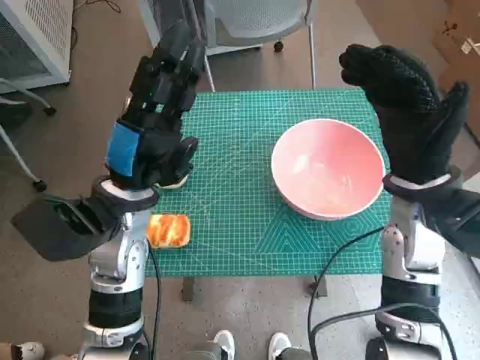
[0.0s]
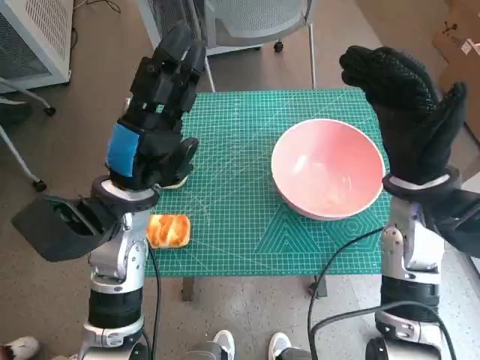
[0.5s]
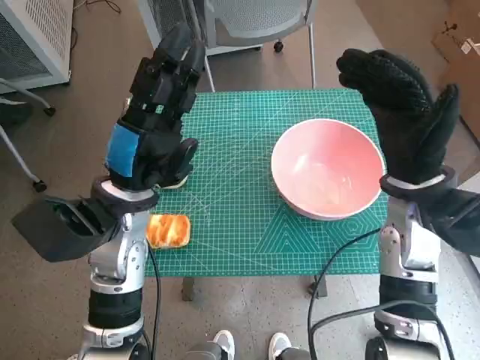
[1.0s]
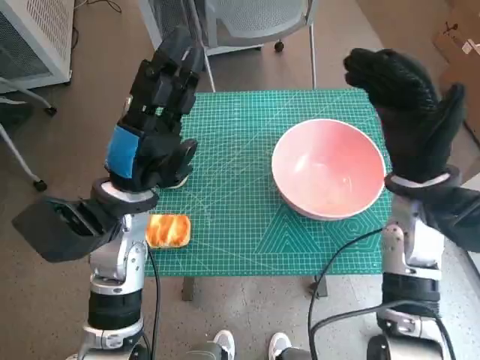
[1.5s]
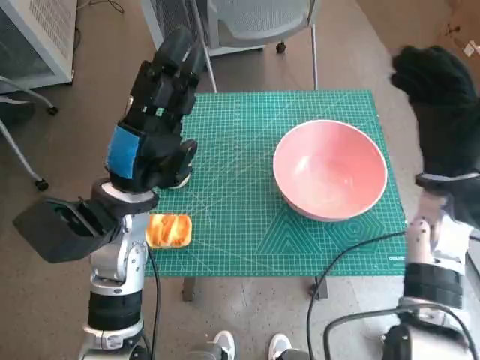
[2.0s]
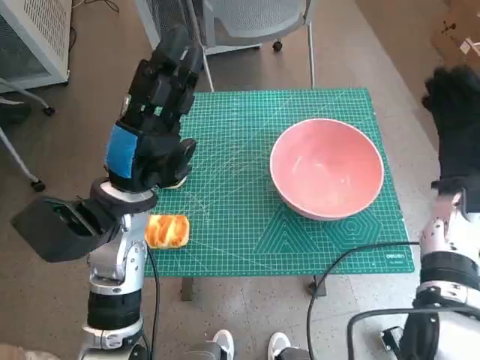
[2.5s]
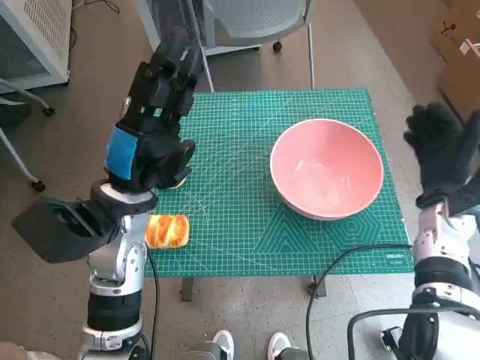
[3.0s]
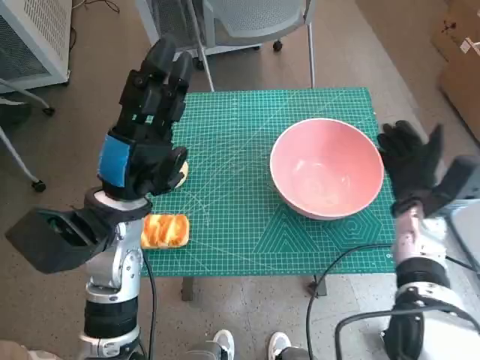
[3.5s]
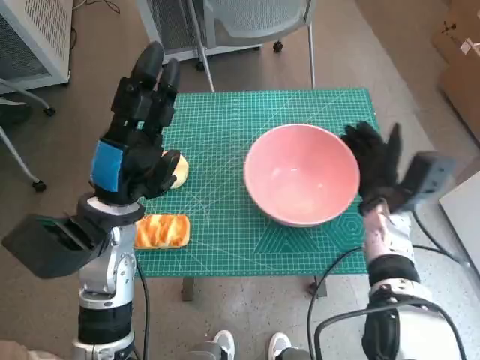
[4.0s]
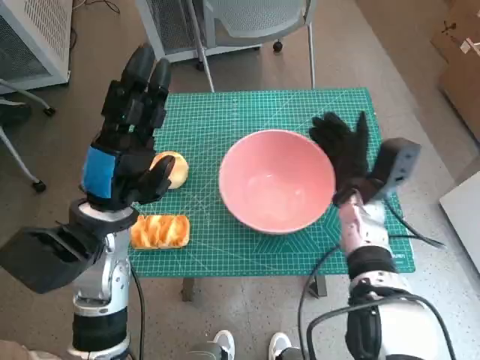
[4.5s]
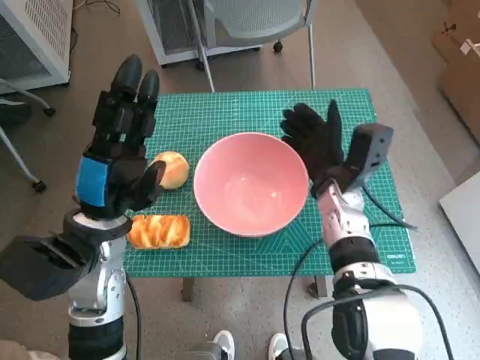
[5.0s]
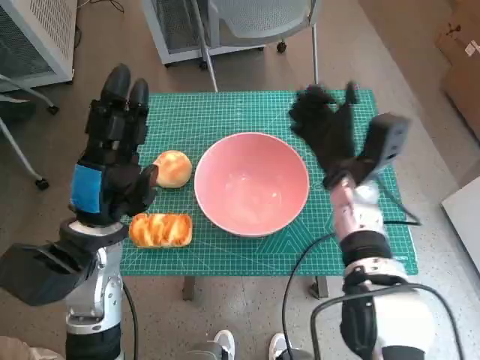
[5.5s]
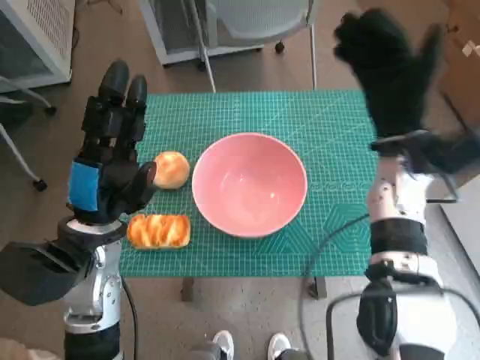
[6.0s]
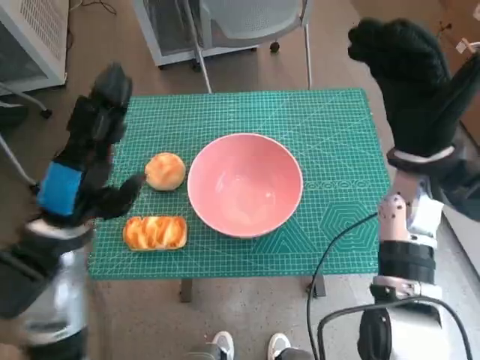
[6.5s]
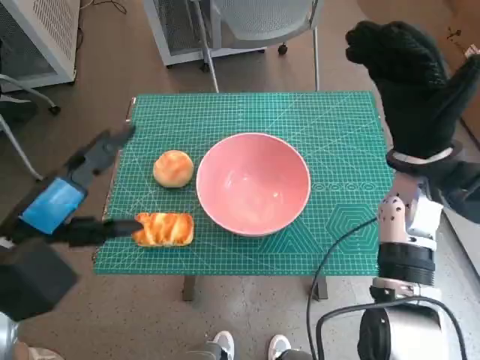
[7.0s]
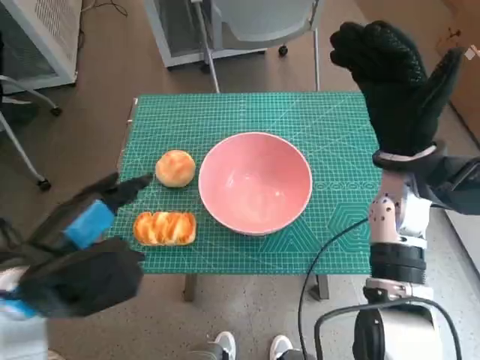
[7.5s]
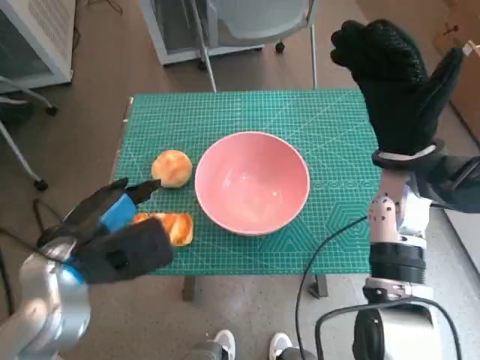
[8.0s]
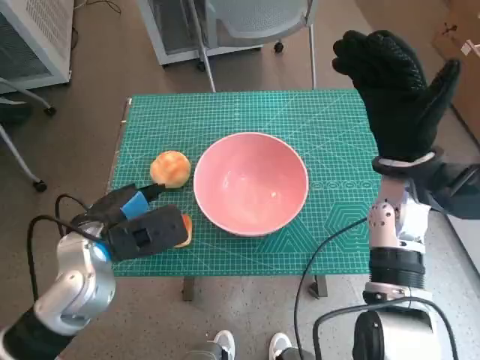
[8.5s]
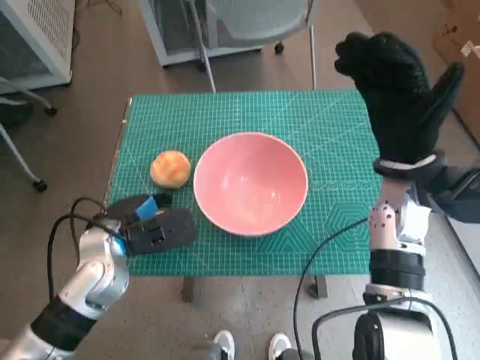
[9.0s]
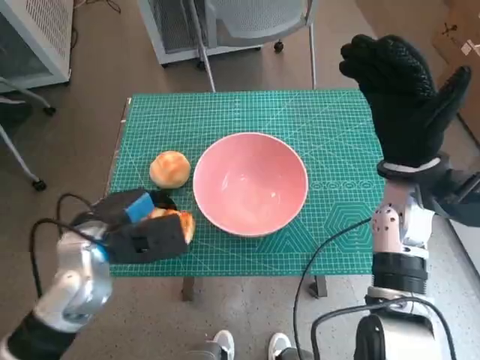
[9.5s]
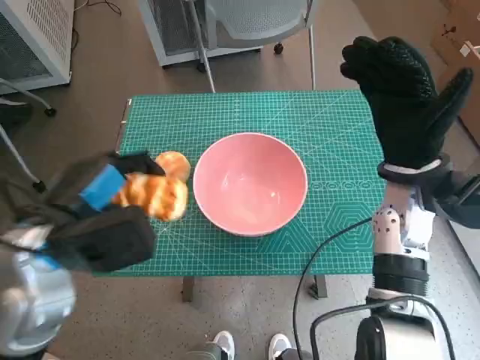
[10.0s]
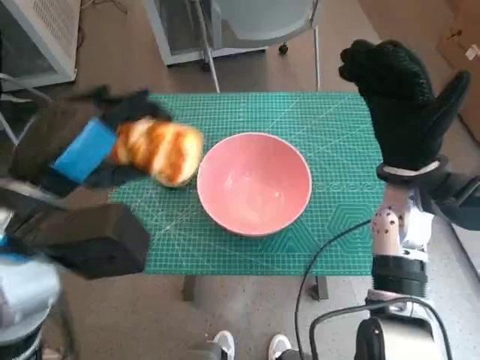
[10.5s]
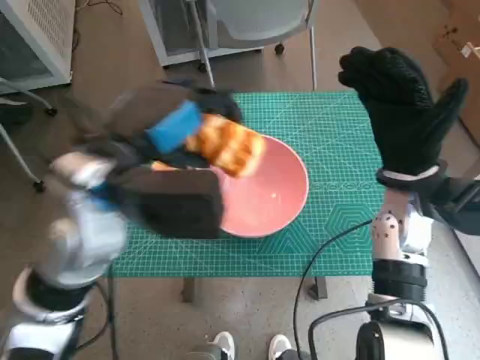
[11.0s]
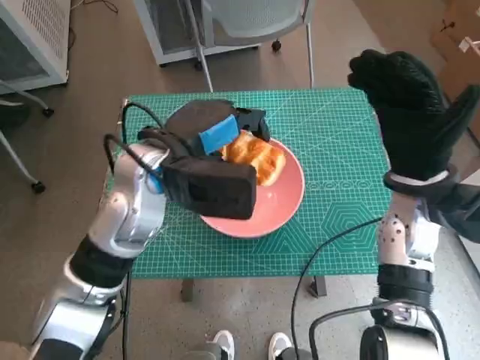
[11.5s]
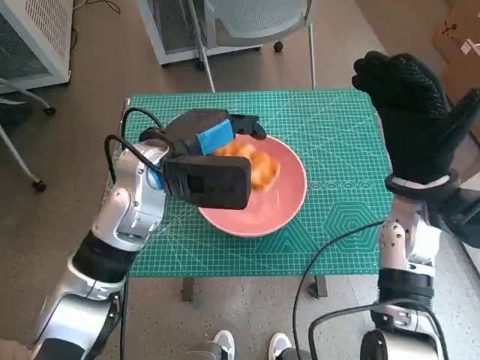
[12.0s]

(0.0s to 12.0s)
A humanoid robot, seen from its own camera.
Step, 0.0s - 5.0s: Move the pink bowl to the center of table with right hand.
Step, 5.5s - 9.0s: Grasp the long bread with left hand.
2.0s - 4.0s: The right hand travels downward by about 10 cm.
4.0s - 6.0s: The right hand heads upward, covering approximately 10 cm.
8.0s - 10.0s: The left hand goes downward and returns, roughly 5 cm each way.
10.0s - 12.0s: The left hand is displaced forward and to the right by some 15 cm.

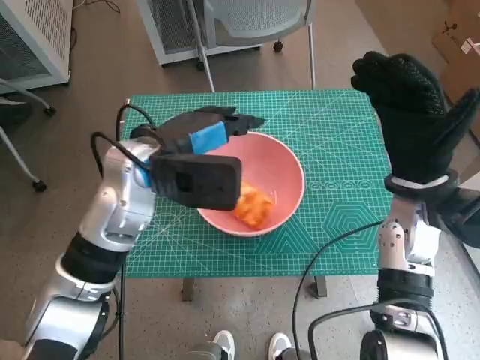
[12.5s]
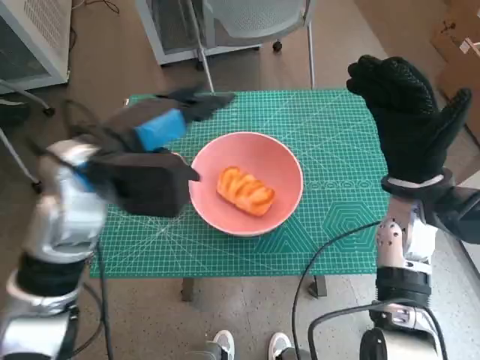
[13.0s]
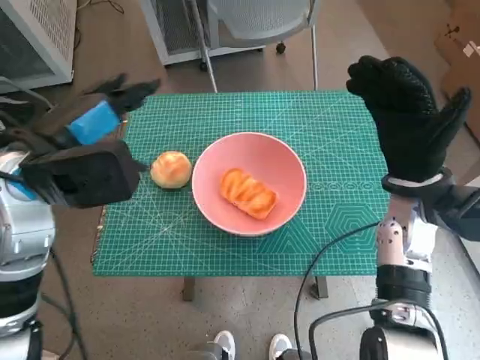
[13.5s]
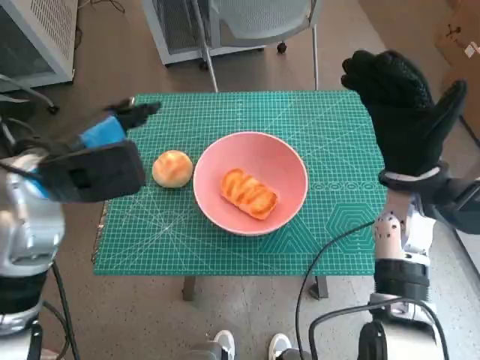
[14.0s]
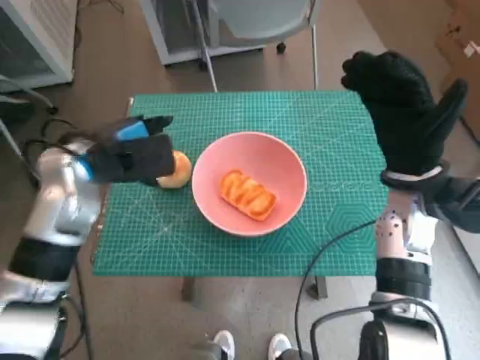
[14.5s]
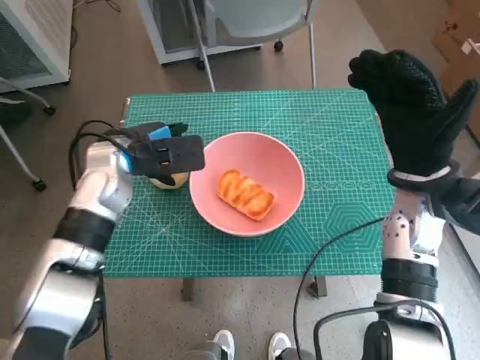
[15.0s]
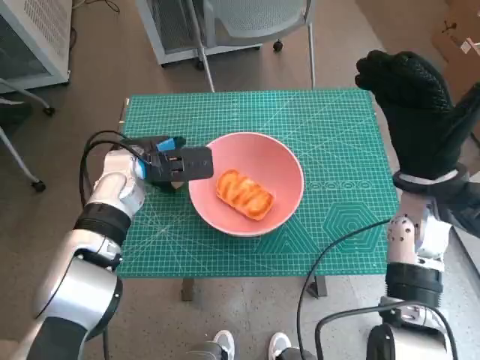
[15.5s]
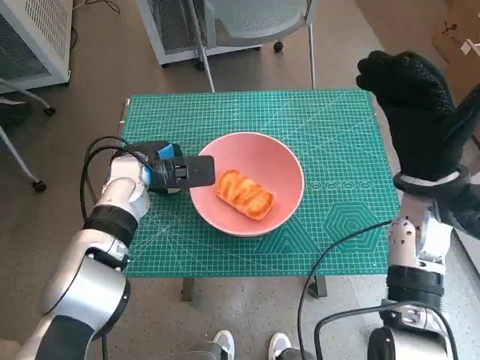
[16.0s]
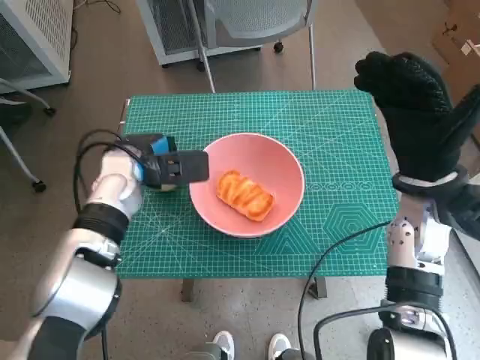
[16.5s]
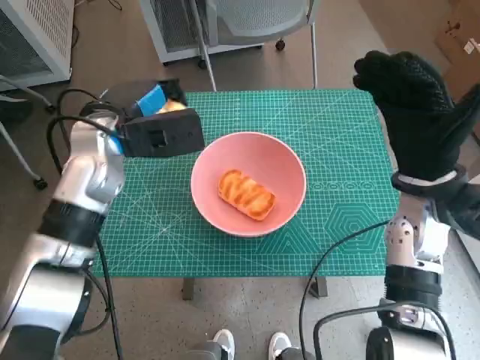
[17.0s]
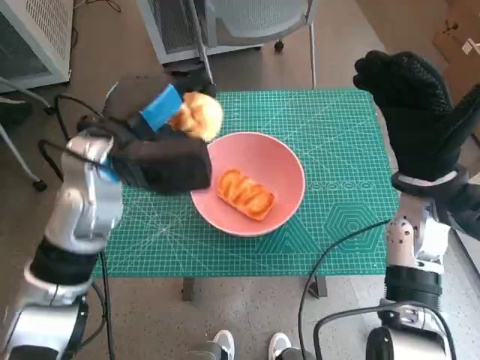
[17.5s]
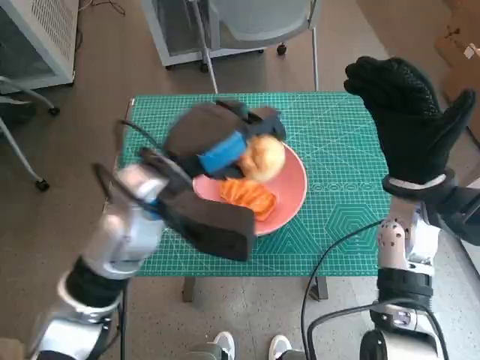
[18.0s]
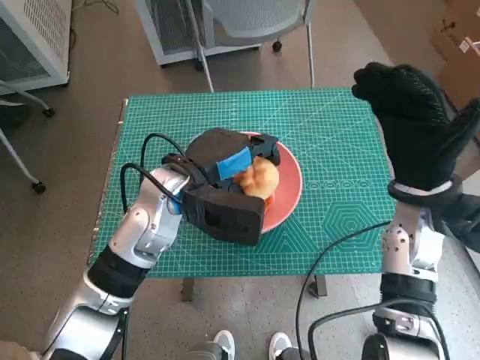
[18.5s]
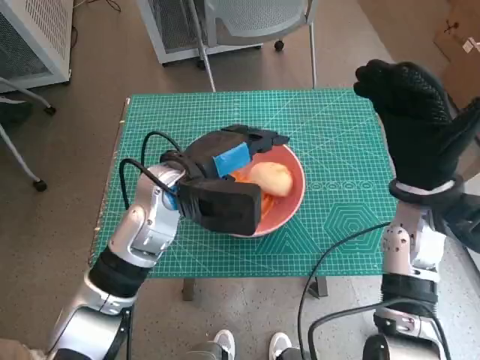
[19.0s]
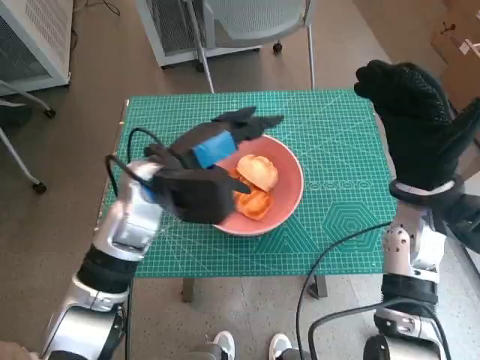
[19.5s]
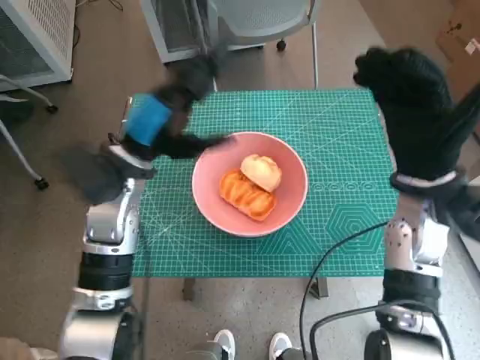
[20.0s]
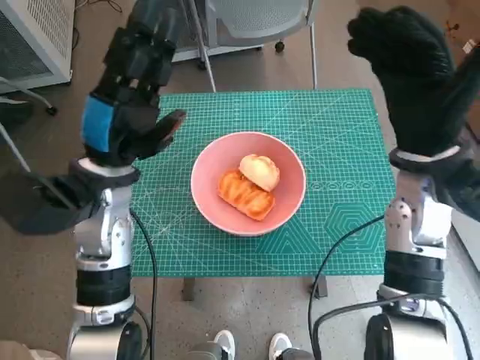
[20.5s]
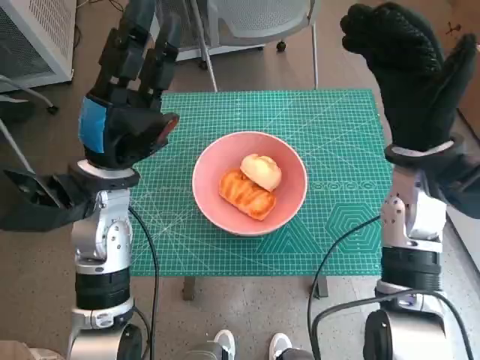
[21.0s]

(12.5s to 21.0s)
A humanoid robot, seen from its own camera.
Step, 13.0s - 16.0s: Grasp the round bread with left hand.
Step, 16.5s - 19.0s: Place the round bread in pink bowl with left hand.
12.5s - 14.5s: The left hand shifts about 10 cm to the left.
14.5s - 16.5s: The left hand shifts about 5 cm downward.
16.5s - 19.0s: The left hand heads to the right and backward, covering approximately 10 cm.
19.0s - 21.0s: The right hand changes place by approximately 5 cm. The left hand is displaced to the left by some 10 cm.

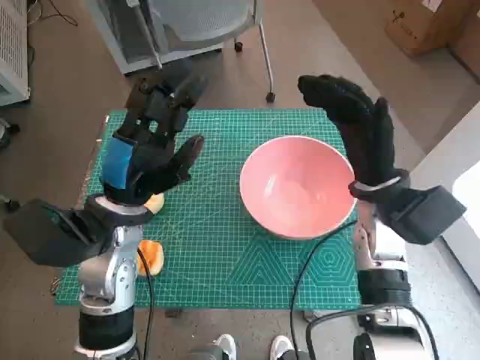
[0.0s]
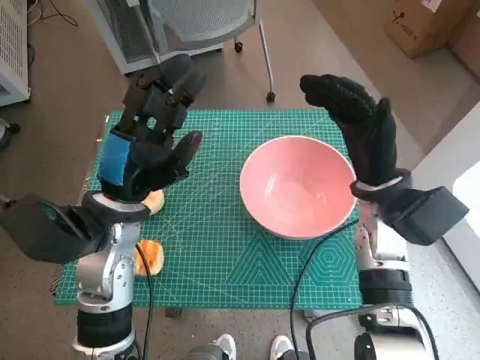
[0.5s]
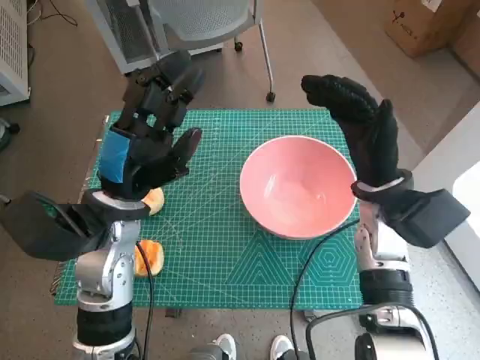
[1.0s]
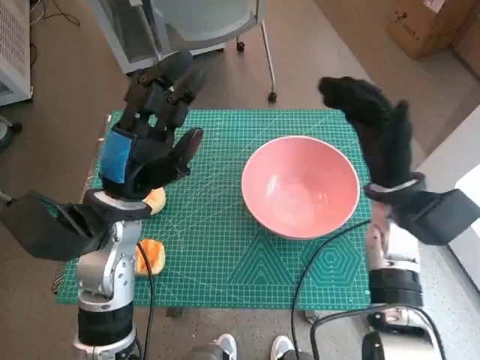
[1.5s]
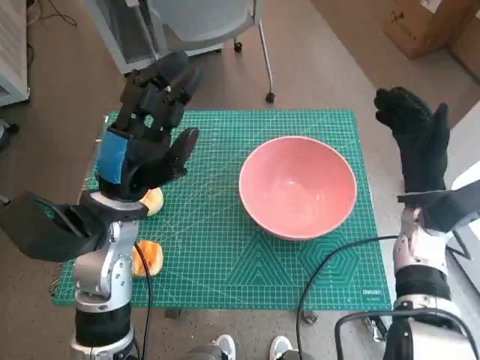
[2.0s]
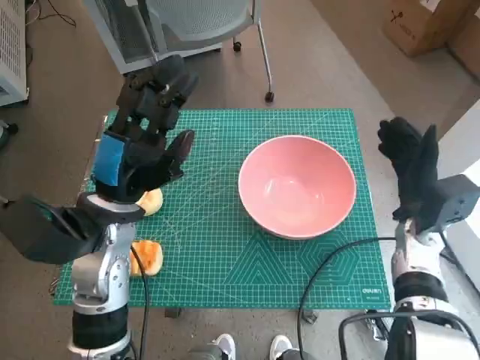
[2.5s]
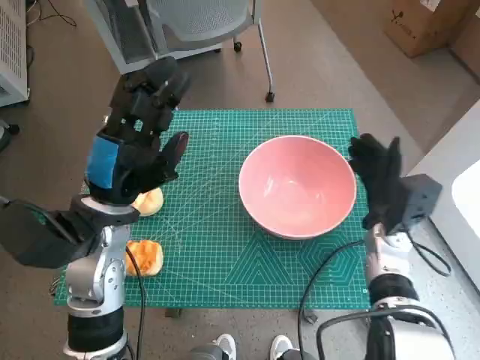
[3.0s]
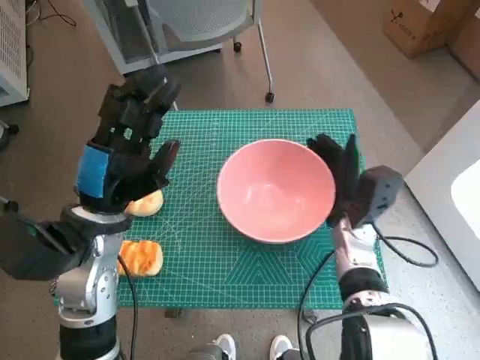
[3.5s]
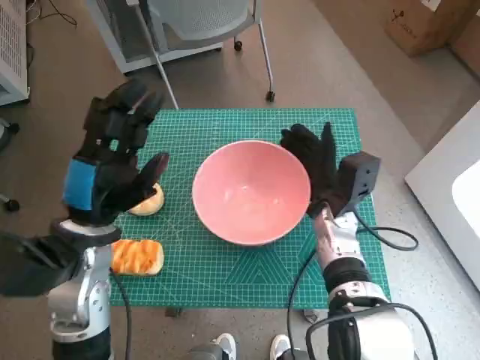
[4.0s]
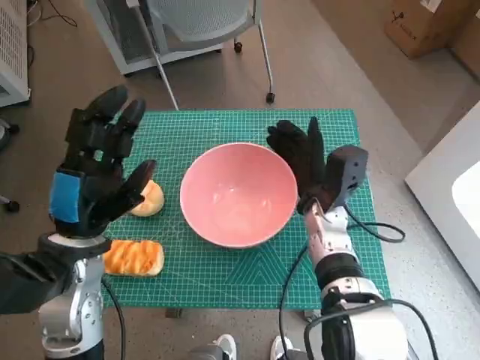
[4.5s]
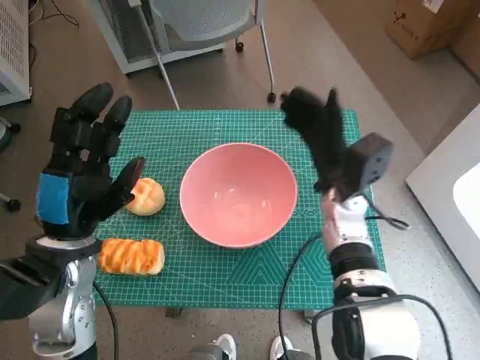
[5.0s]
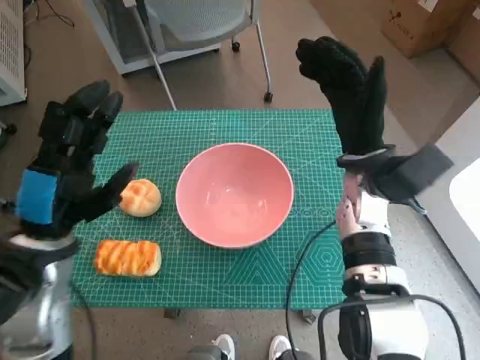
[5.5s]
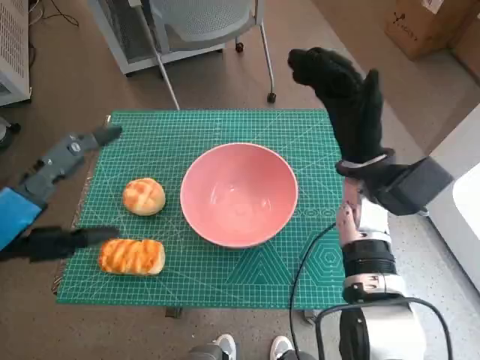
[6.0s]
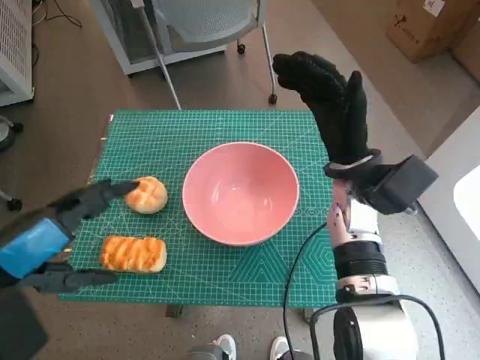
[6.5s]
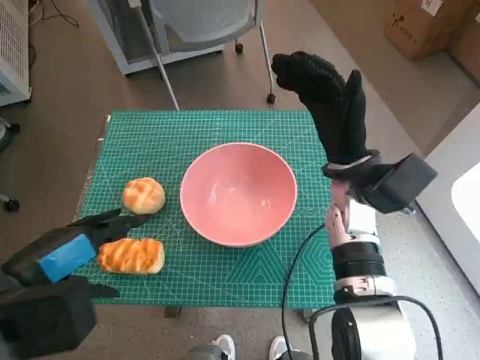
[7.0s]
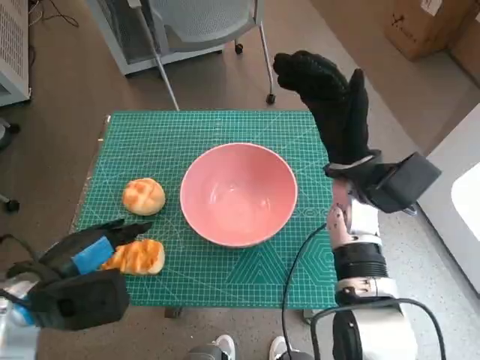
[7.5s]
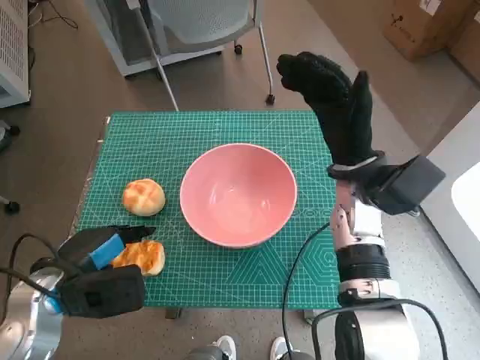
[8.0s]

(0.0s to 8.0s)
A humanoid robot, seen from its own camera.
Step, 0.0s - 4.5s: Move the pink bowl to the center of table with right hand.
2.0s - 4.0s: The right hand heads to the left and downward, covering about 10 cm.
4.0s - 6.0s: The left hand goes some 10 cm upward, backward and to the left. The right hand travels upward by about 10 cm.
6.0s - 8.0s: The left hand shifts roughly 15 cm downward.
